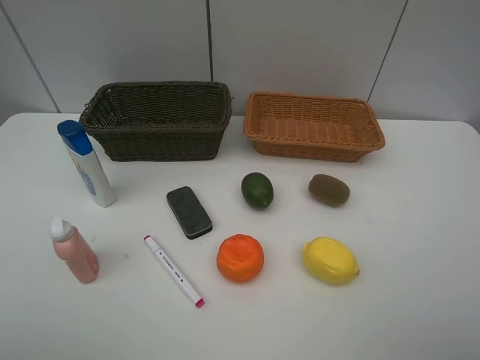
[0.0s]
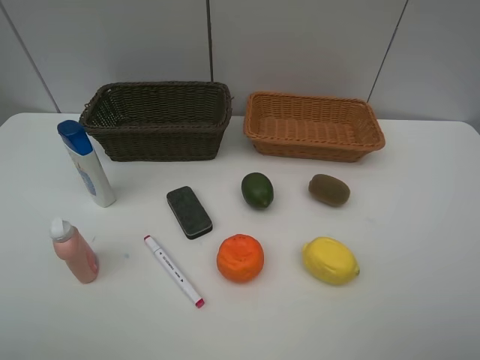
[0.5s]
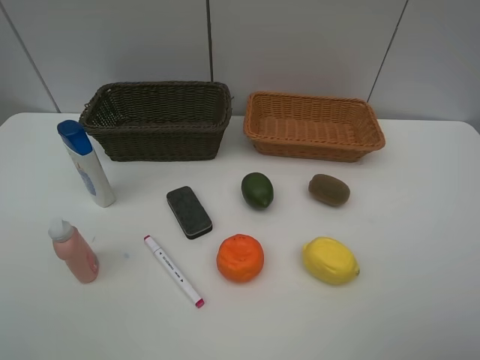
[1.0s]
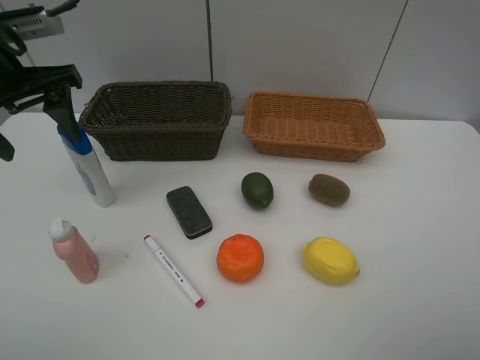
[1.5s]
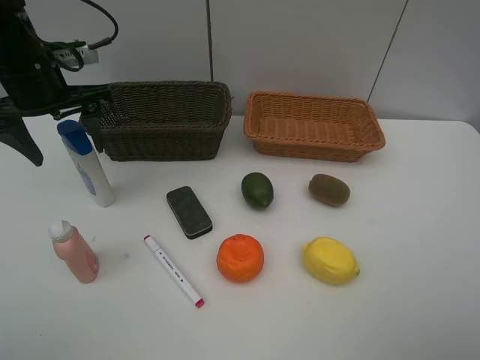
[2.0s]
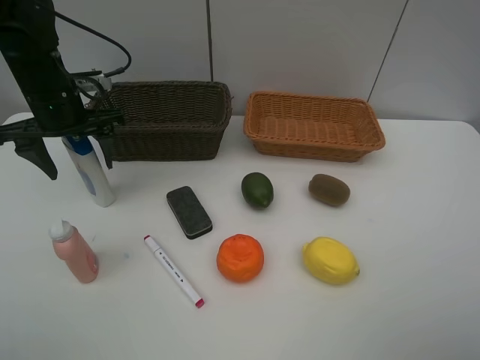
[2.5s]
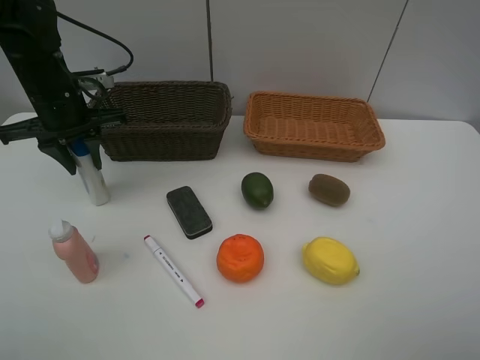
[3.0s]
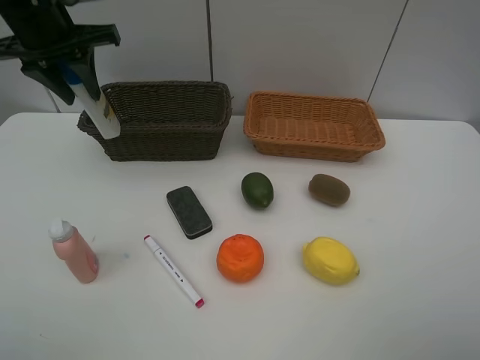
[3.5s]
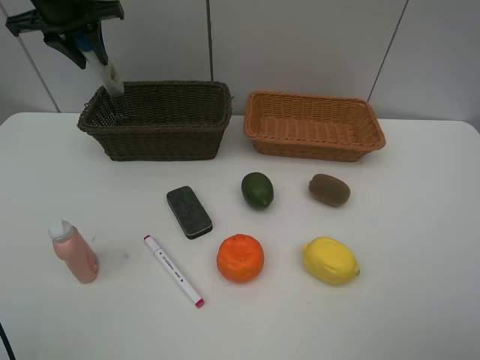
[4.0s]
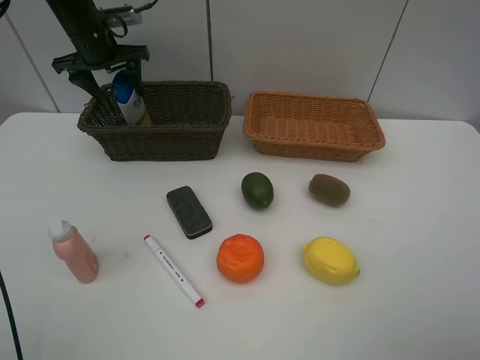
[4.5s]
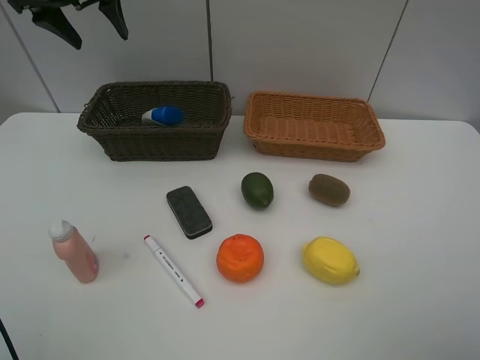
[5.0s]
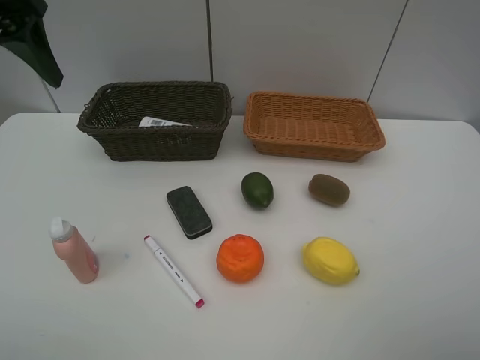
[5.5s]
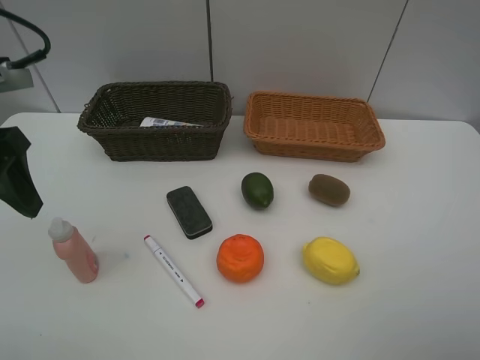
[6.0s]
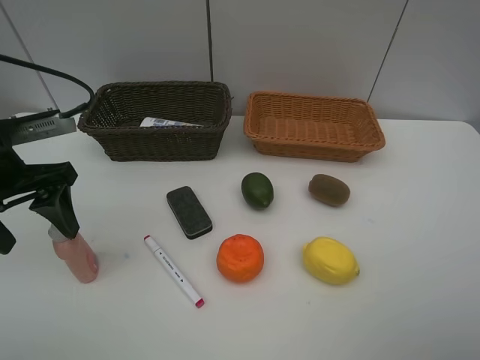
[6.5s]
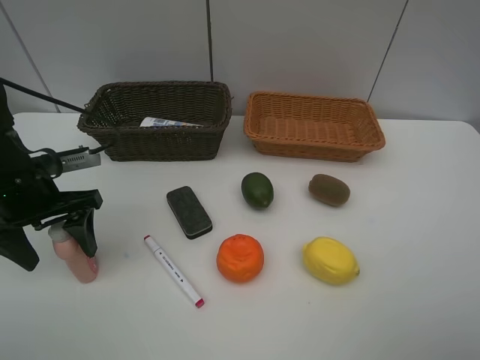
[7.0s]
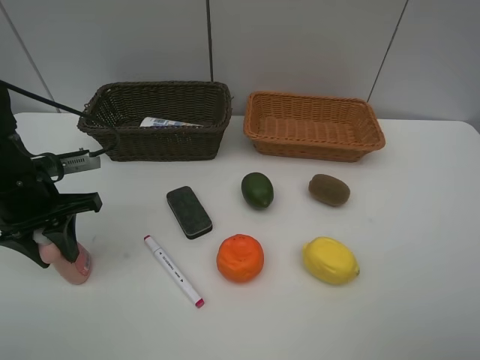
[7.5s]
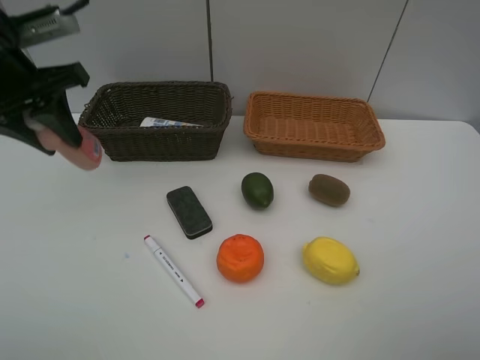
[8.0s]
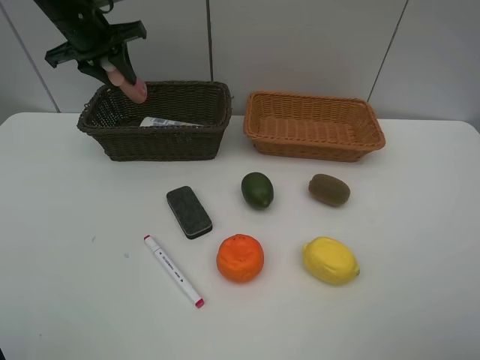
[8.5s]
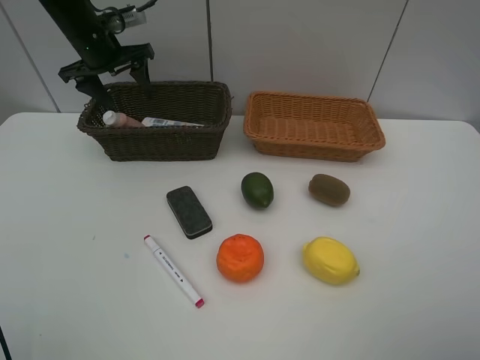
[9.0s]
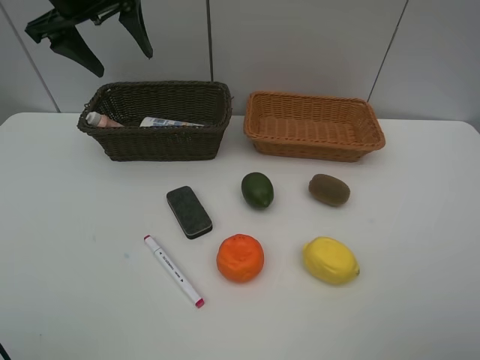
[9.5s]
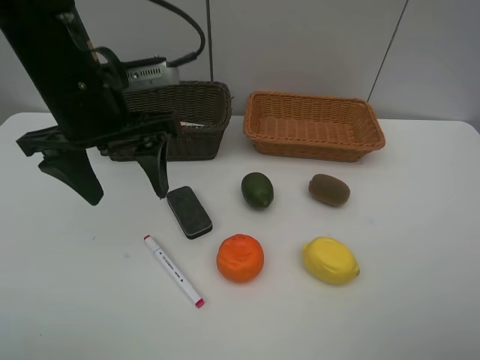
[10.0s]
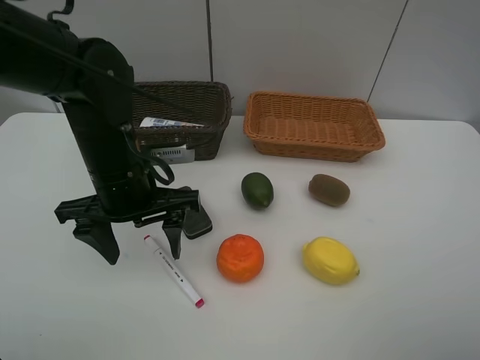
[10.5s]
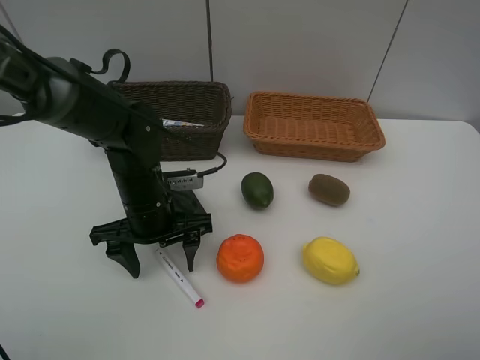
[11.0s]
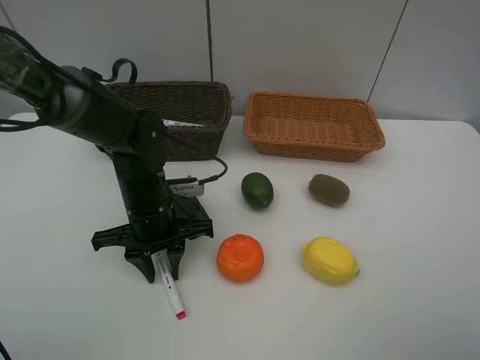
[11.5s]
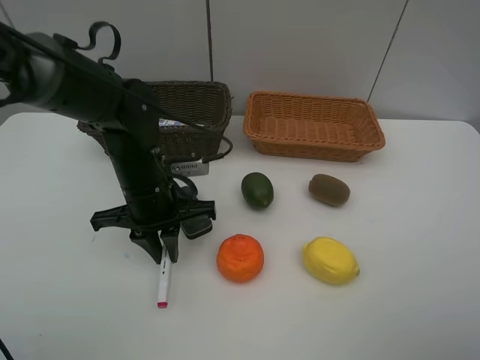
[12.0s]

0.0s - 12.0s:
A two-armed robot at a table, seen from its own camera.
Task of the whole recording: Place multiple objects separately in different baskets.
Step, 0.0s - 3.0s: Pick up the shampoo with left gripper.
Step, 3.5s - 4.5s: Place the shampoo in the dark basket with left gripper.
Step, 5.0s - 7.5s: Pick up the laundry detergent with left gripper.
Step, 8.0s - 9.0s: Place the laundry detergent in the dark basket with left gripper.
Step, 9.5s - 12.0s: Pick up the red marker with left gripper.
0.0s - 2.0s: The left gripper is displaced forward by some 35 cm.
2.0s - 4.0s: The left gripper is displaced forward by roughly 15 cm, and closes its fingers.
4.0s - 6.0s: The left gripper is displaced backward by roughly 30 cm, and opens up.
6.0s - 8.0s: The left gripper heads forward, covering approximately 10 cm, goes downward and returns, about 15 cm each way, and closes.
8.0s - 10.0s: The left gripper is displaced to the right by some 10 cm, goes forward and returns, about 20 cm each way, and opens its fingers.
10.0s - 12.0s: The left gripper travels downward by approximately 10 cm, and closes up.

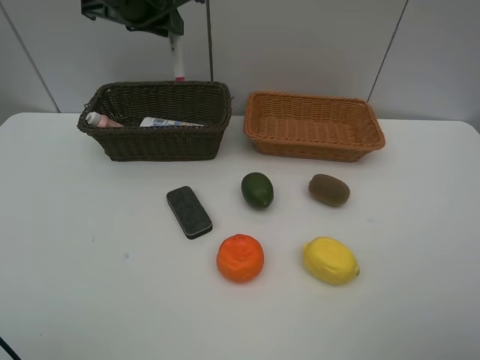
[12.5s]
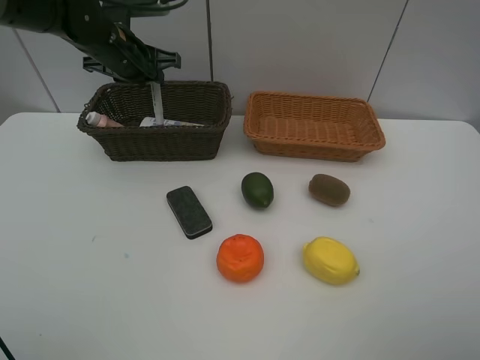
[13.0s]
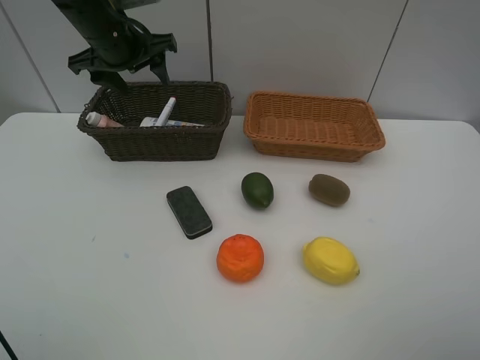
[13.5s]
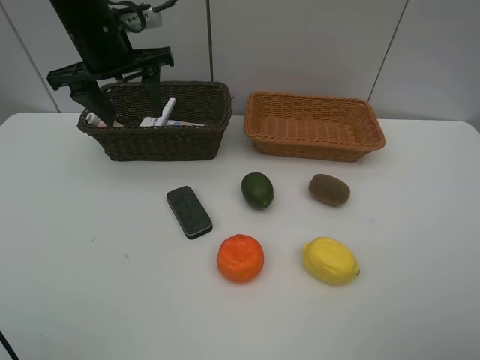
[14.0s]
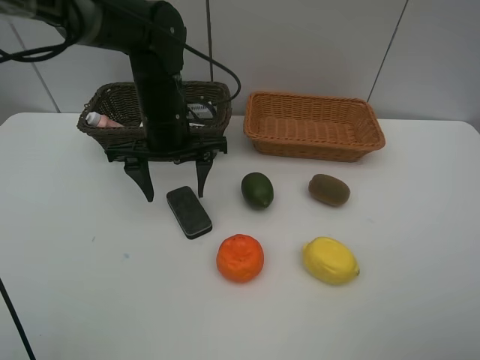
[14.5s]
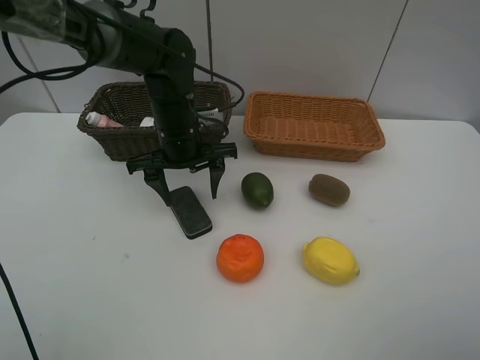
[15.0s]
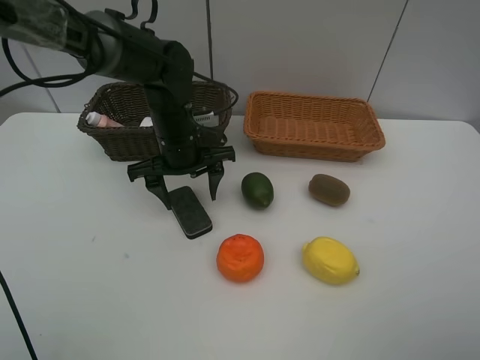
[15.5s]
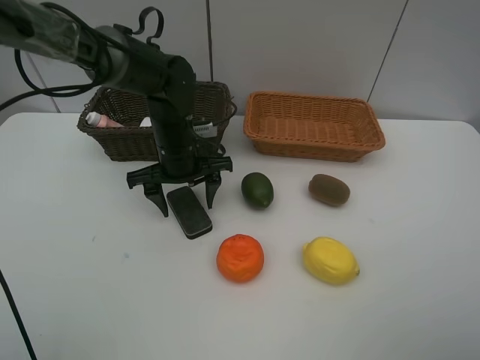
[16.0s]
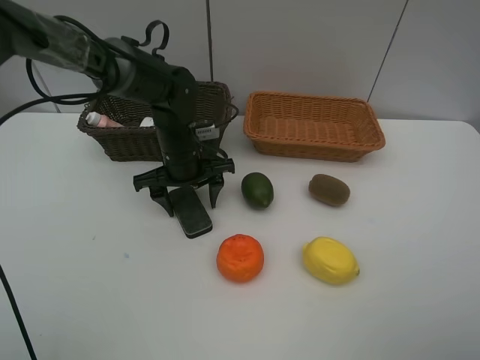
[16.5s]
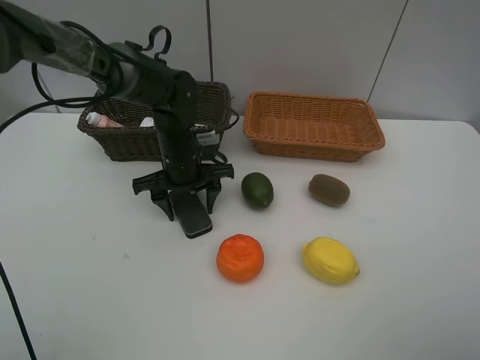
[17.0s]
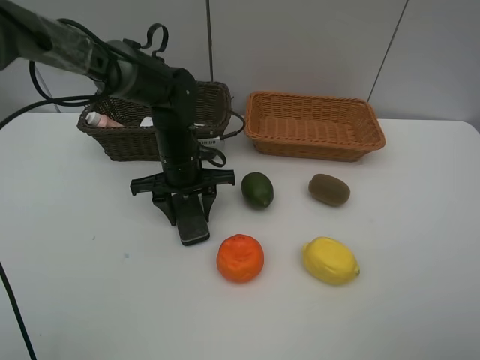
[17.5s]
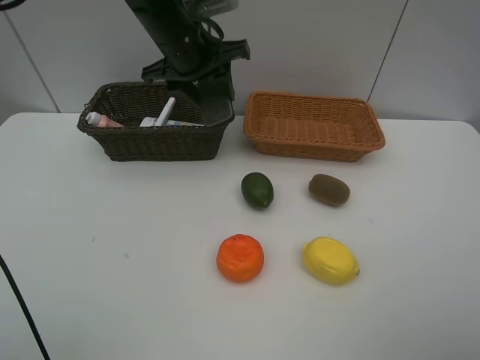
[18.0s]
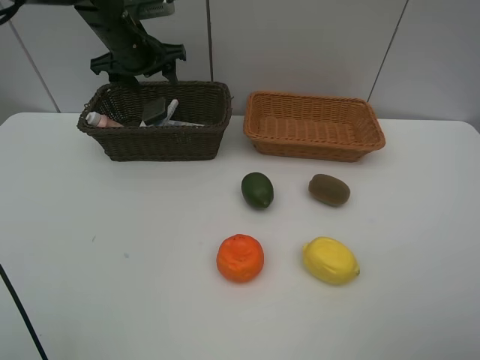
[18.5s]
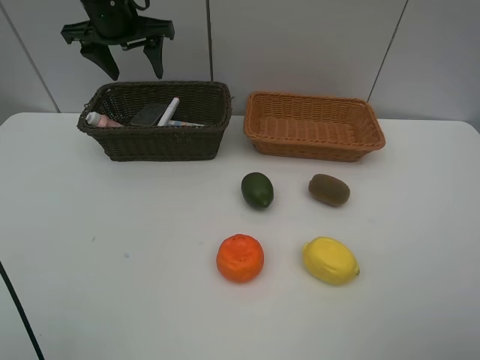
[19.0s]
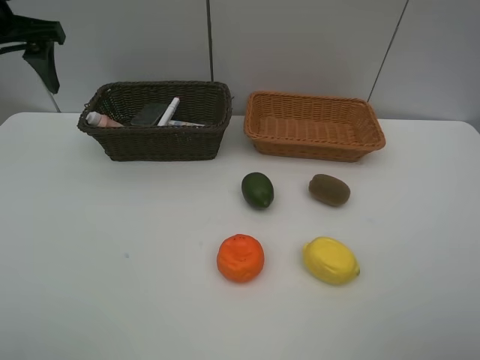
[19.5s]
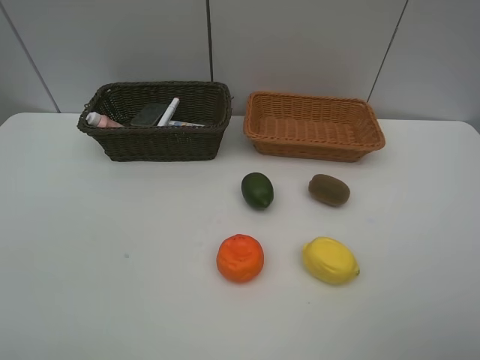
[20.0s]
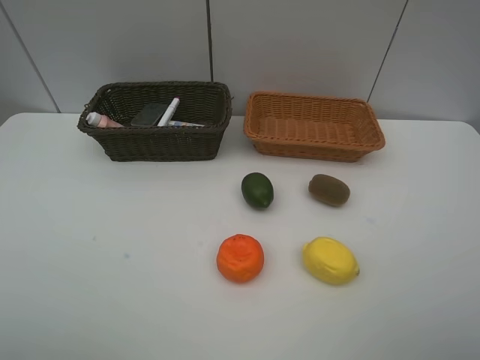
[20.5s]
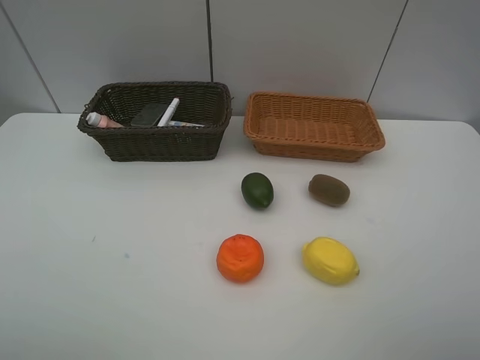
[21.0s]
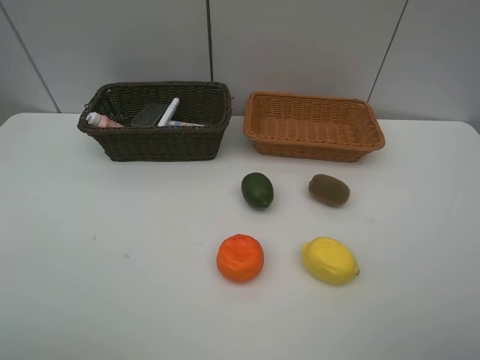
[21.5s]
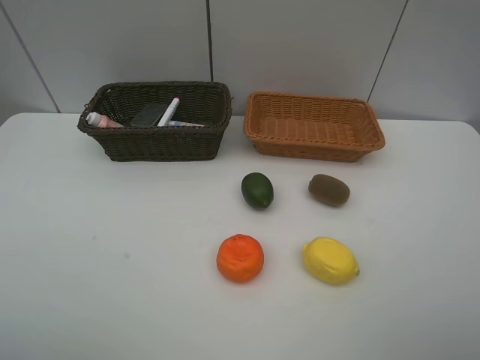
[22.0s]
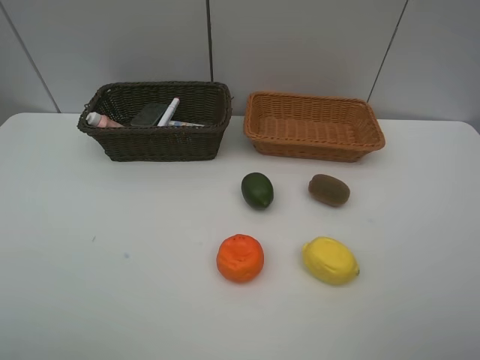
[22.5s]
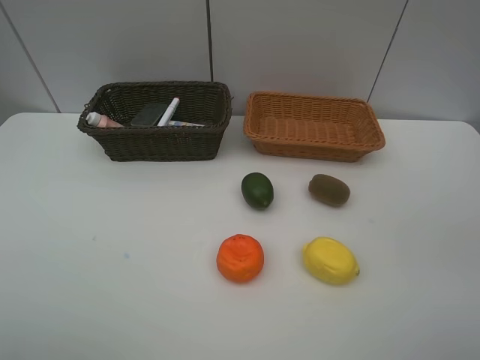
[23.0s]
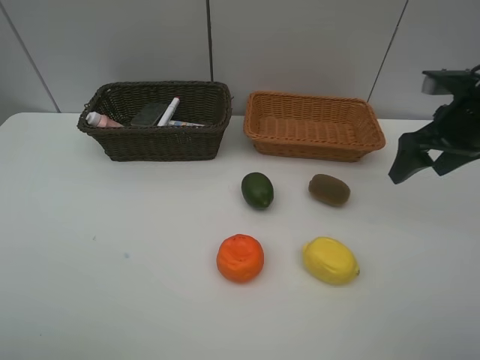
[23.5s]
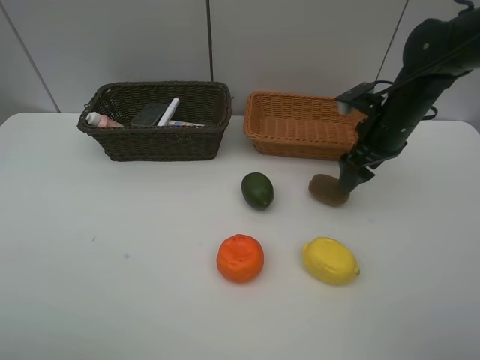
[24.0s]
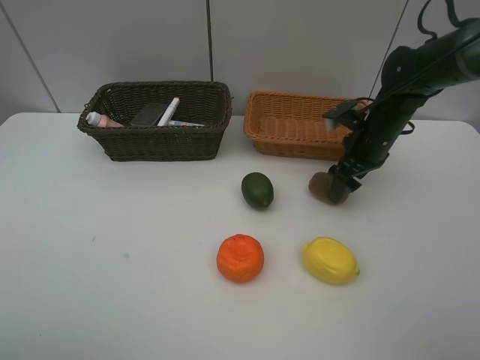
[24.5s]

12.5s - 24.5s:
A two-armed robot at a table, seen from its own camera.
Task of the whole recording: Place multiple objects separately in different baskets.
Step, 13.5s - 17.5s: Pick up blackboard eraser with left gripper.
Step, 18.0s - 18.5s: Place the blackboard eraser in the dark basket with left gripper.
12.5s - 14.5s: The left gripper moves up and down over approximately 15 cm, changing direction 2 times, and opens.
14.5s - 16.5s: The left gripper moves downward, about 5 cm.
16.5s - 18.5s: The left gripper is displaced upward, forward and to the left by approximately 20 cm.
18.5s - 20.5s: The left gripper travels backward by approximately 50 cm.
22.5s - 24.5s: The right gripper travels forward and downward by approximately 40 cm.

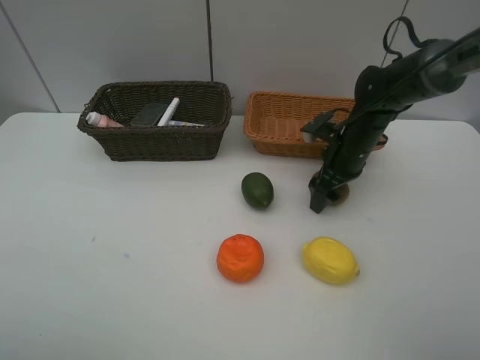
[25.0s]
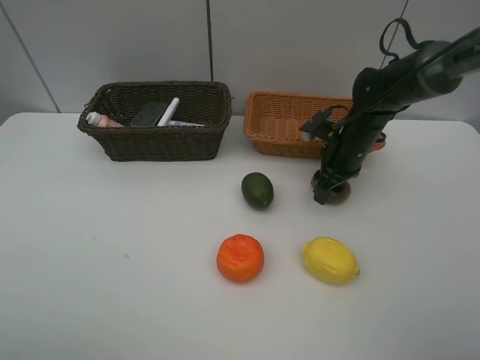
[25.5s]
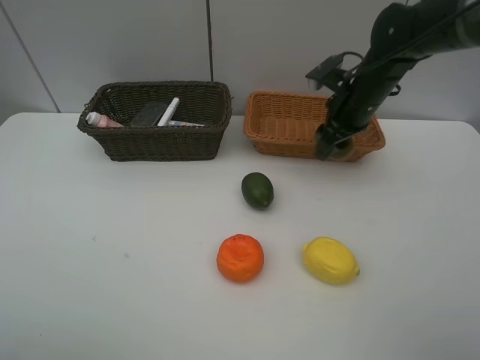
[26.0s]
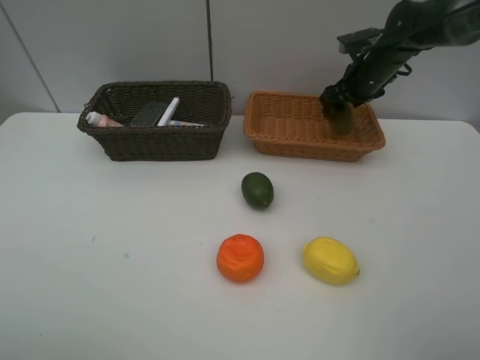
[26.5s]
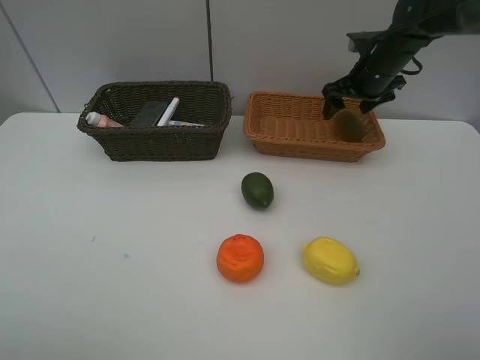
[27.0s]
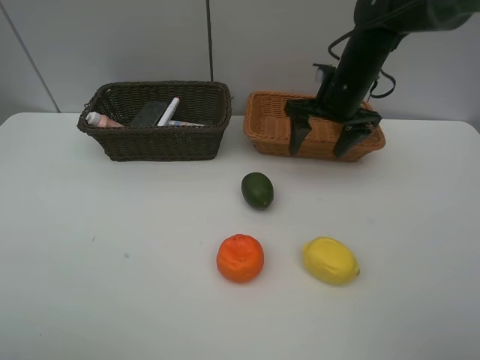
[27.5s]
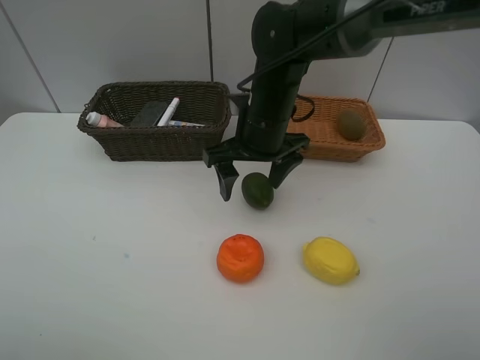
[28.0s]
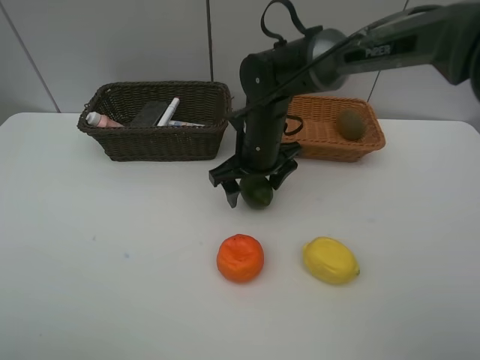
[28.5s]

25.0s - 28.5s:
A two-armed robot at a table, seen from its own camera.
Task of the whole recording: Place multiple objects separately in different baskets.
Step, 26.0s - 26.5s: Place the kiwi in the light basket with right gripper.
25.0s - 27.0s: The right gripper is displaced upward and forward by some 15 cm, and closes and opens again.
27.0s - 28.5s: The right gripper shifts roughly 25 cm to the left and backward.
